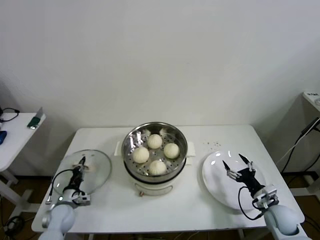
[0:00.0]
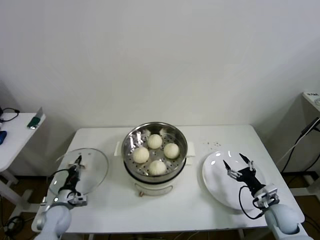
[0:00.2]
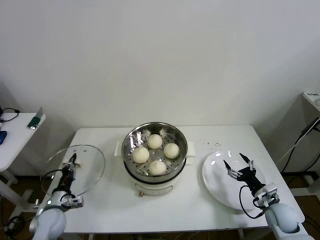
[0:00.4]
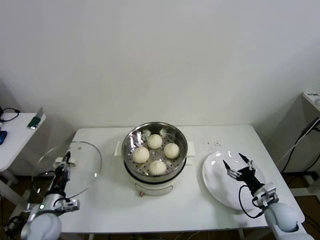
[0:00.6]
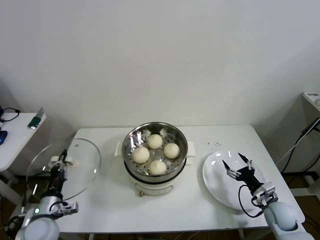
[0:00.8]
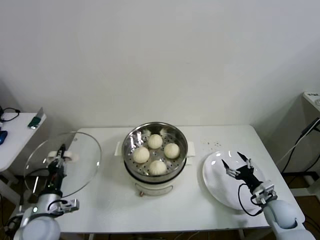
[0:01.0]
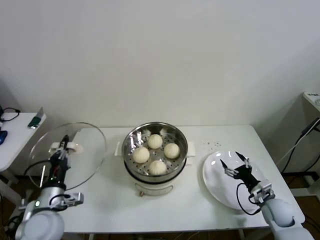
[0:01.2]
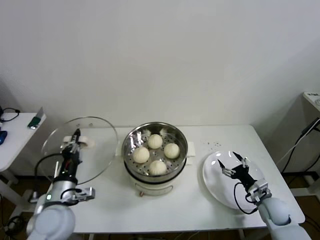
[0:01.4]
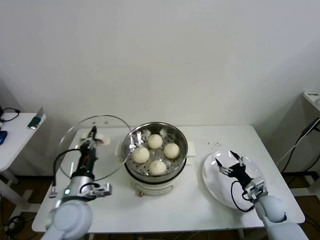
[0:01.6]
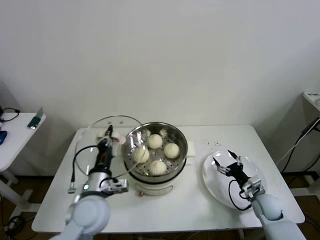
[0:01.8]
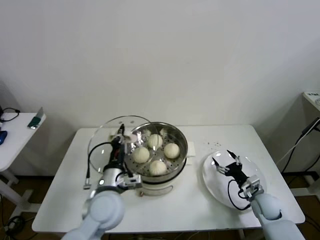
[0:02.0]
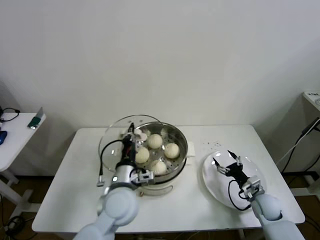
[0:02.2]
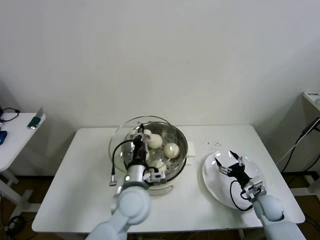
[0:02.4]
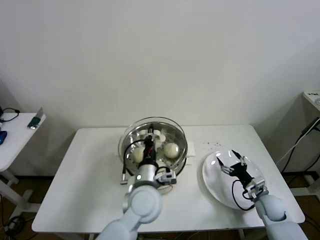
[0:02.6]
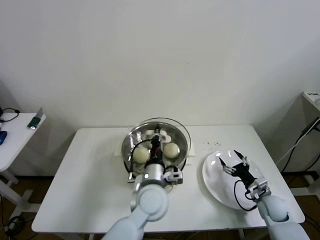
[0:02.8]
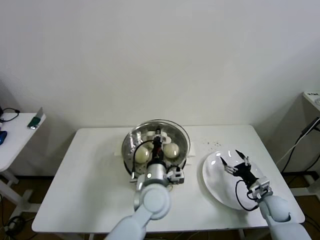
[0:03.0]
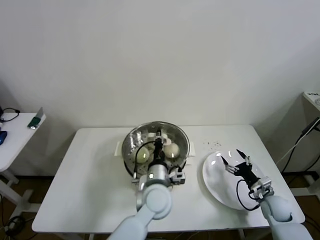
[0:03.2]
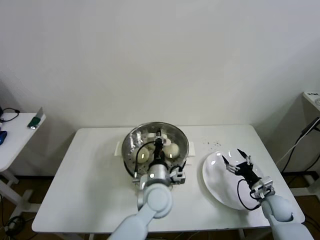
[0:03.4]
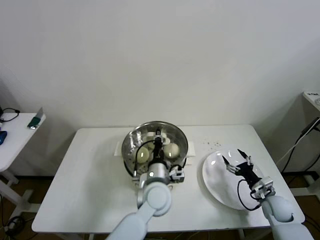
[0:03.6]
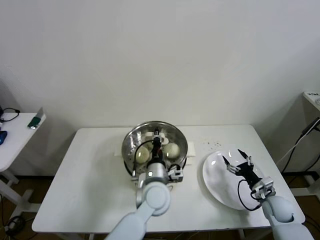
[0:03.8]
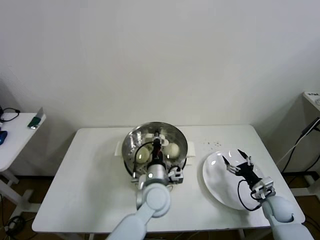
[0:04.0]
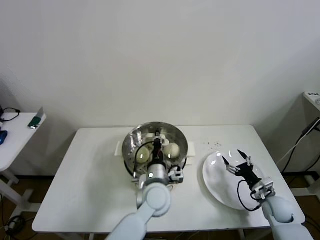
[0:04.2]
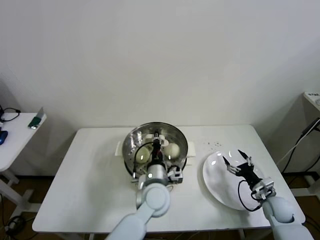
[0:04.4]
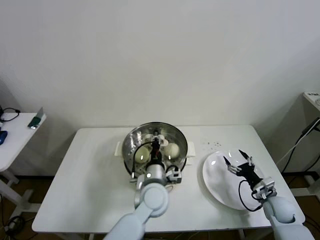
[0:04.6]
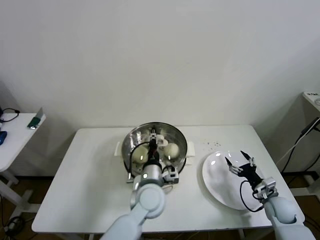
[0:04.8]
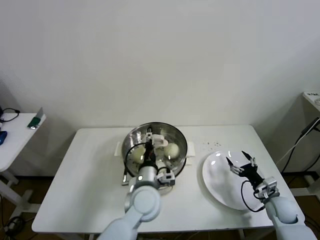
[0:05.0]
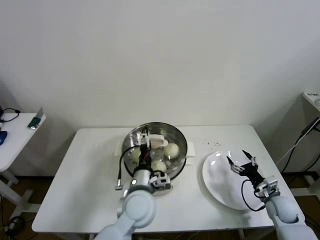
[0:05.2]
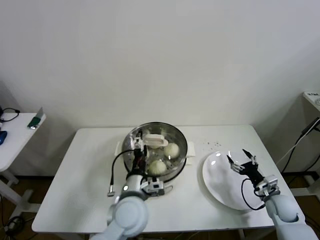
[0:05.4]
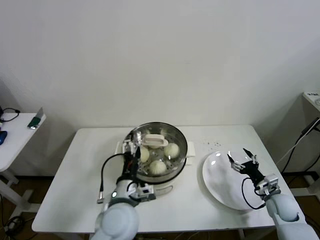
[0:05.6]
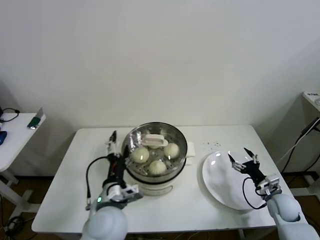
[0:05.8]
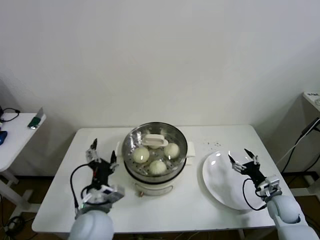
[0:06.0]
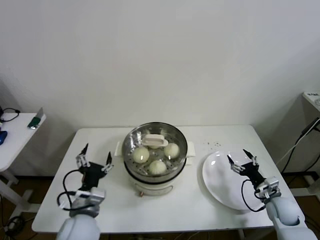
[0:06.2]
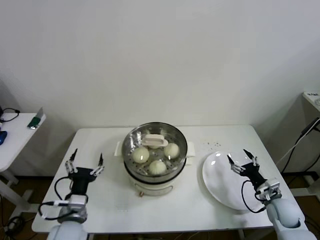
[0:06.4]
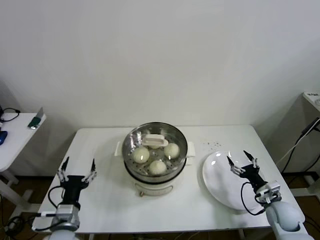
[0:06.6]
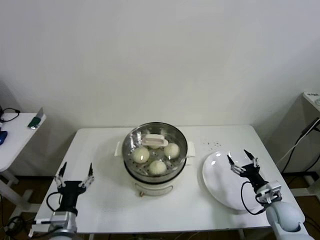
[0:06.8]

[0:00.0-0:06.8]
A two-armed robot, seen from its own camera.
Step, 0:00.0 to 0:05.4: Place the pot lid on the steamer with left gripper.
0:00.0 to 0:01.4: The left gripper travels upward and to the right by roughly 20 cm.
0:01.4 to 0:02.8: The left gripper goes approximately 25 cm to the right.
0:02.8 to 0:04.0: The grippers move only a little.
0:04.0 to 0:05.4: The left gripper travels to the left by some 5 cm, and opens.
0:05.4 to 0:06.8: The left gripper heads to the left and backward, covering approximately 25 cm.

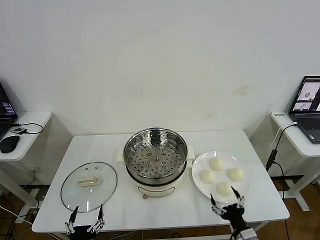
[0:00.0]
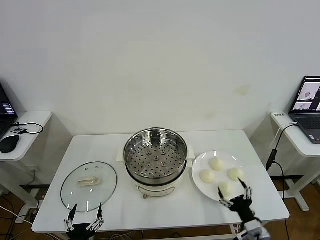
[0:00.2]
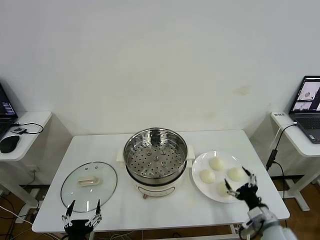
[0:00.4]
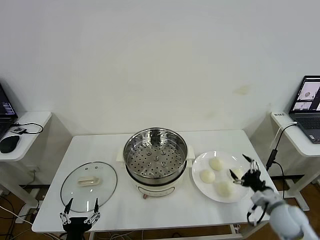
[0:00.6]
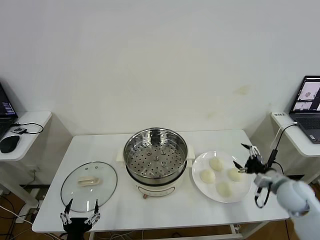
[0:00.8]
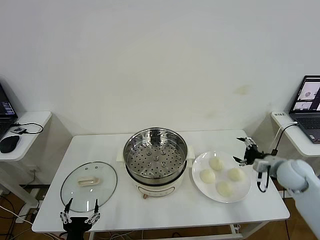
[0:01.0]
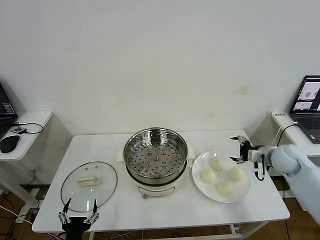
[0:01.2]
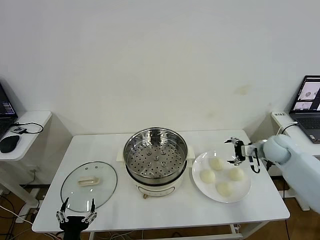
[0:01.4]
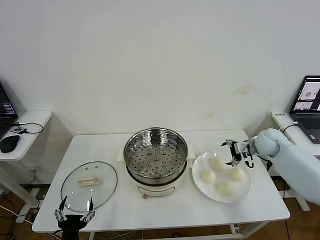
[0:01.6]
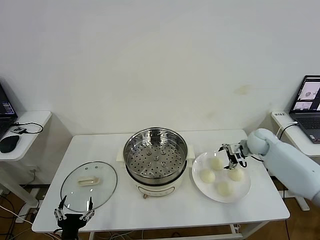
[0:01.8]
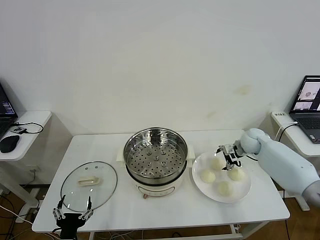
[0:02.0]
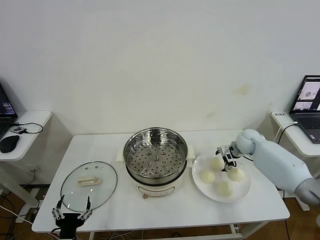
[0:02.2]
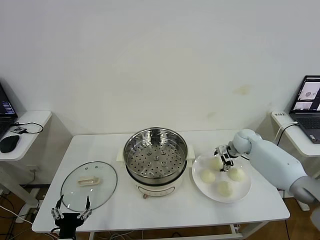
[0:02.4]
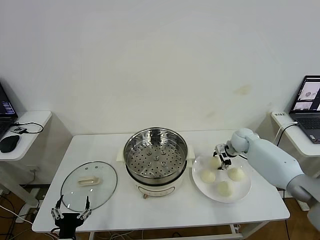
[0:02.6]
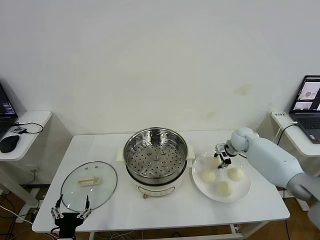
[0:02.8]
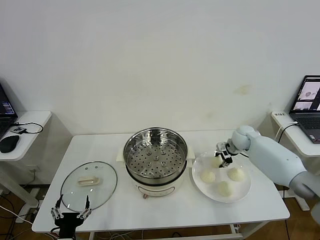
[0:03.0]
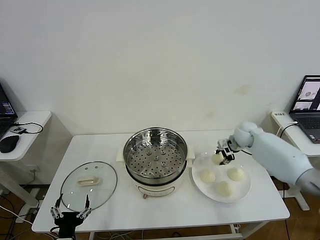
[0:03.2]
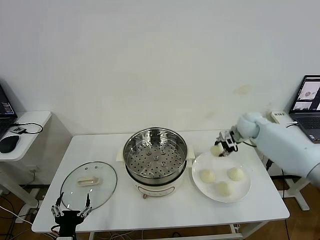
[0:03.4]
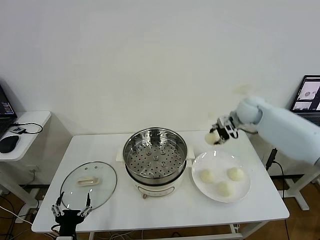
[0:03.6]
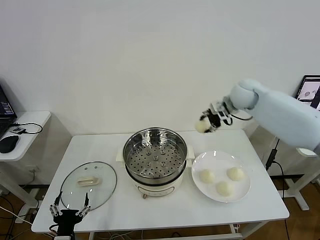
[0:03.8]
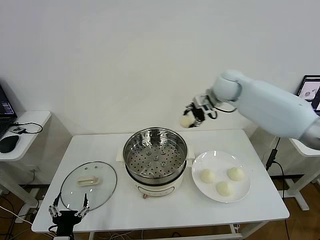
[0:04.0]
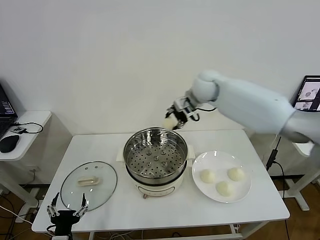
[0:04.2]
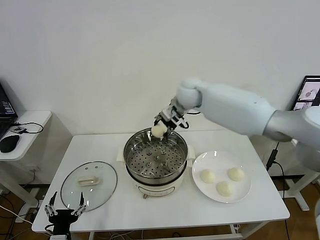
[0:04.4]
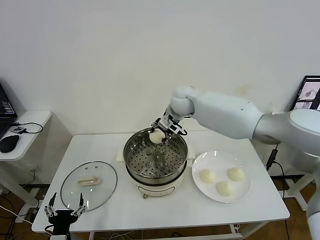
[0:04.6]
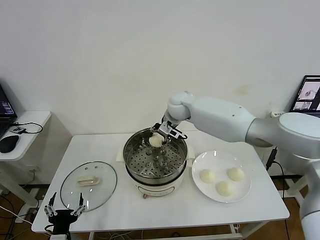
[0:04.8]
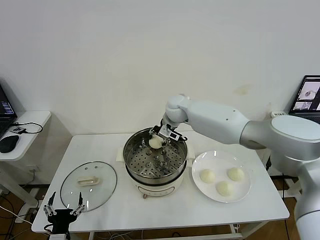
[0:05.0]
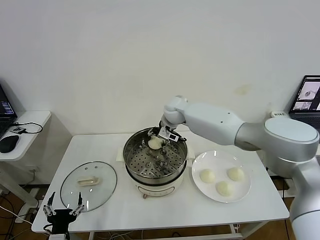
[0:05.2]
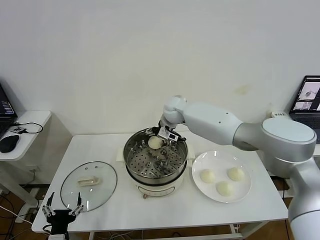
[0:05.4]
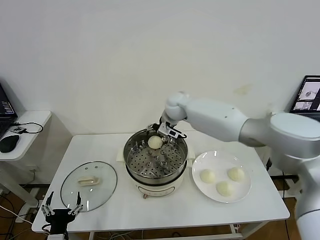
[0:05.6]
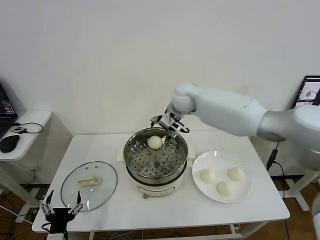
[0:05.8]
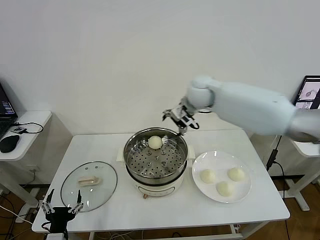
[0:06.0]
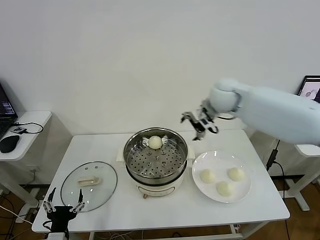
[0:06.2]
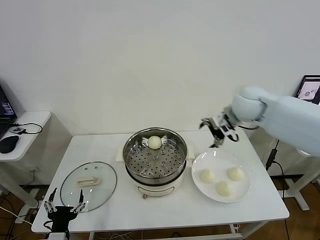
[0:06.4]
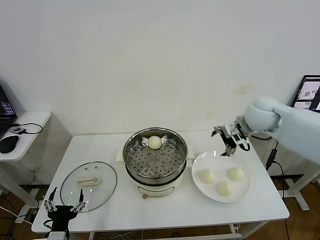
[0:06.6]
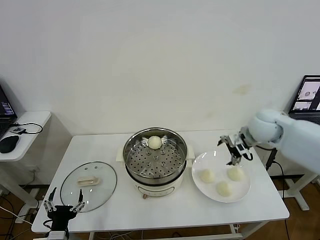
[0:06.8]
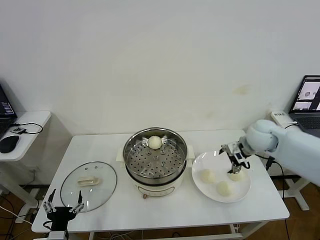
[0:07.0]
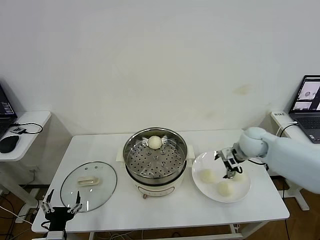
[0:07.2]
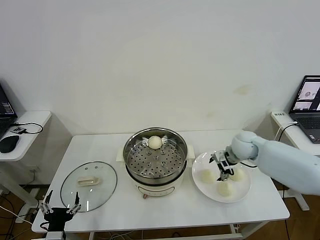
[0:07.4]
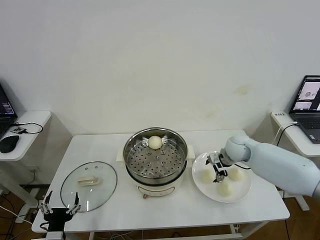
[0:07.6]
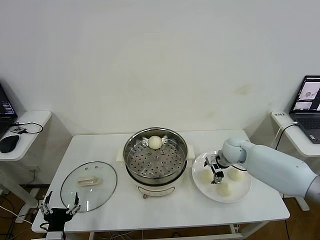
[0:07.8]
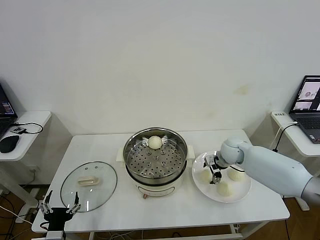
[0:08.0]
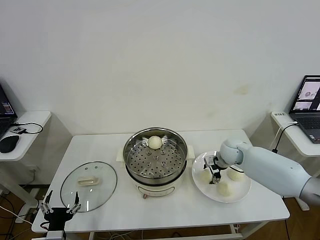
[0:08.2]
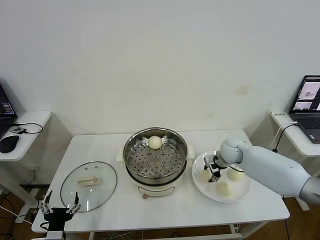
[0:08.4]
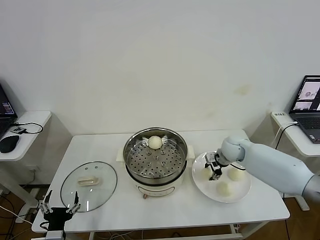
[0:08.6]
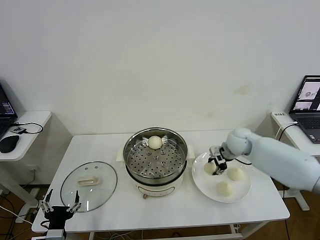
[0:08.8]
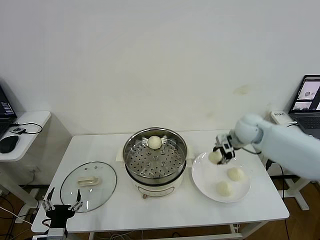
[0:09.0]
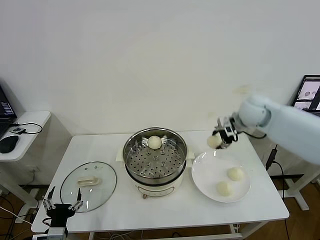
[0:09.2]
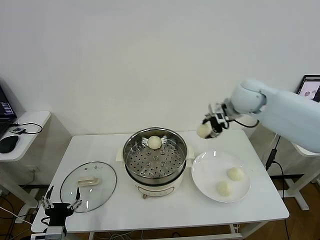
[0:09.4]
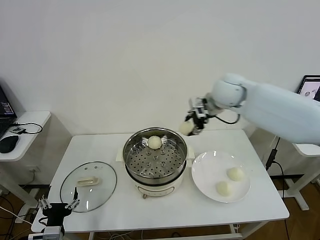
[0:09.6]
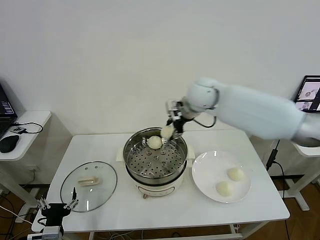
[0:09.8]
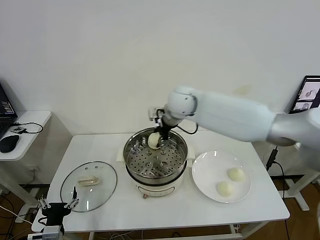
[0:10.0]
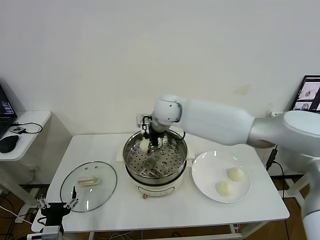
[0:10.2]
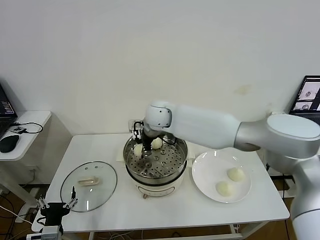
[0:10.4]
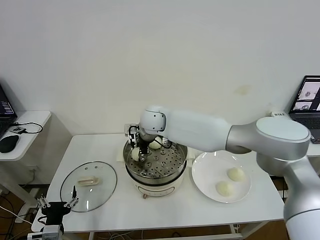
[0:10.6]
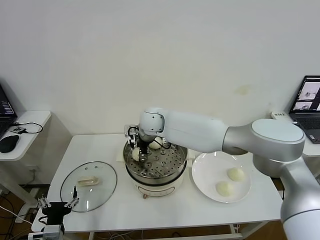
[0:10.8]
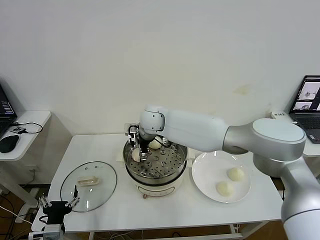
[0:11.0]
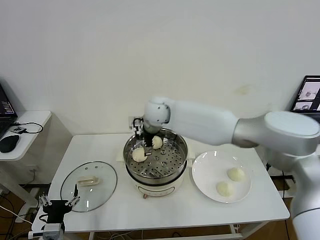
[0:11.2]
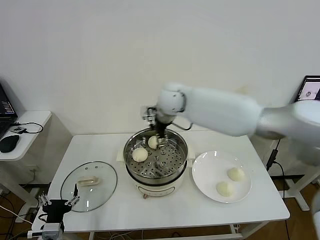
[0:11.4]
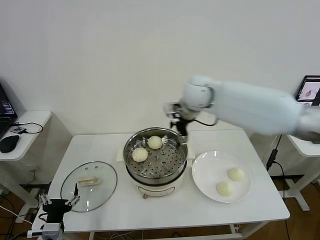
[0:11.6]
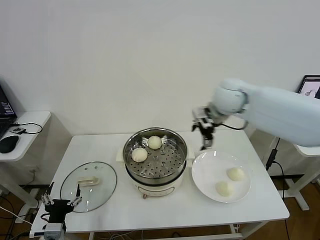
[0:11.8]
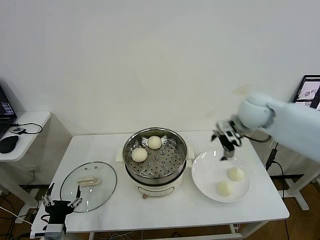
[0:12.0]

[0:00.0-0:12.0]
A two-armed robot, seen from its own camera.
Step, 0:00.0 to 0:02.6: Grasp the baozi in the plate with right gripper.
Step, 0:03.0 to 0:05.4: Place the baozi on the steamer with right gripper.
Step, 0:05.6 to 0:08.4: Grasp the baozi in the plate with right gripper.
Step, 0:08.6 to 0:11.0: Place the baozi on the steamer with right gripper.
0:01.6 to 0:03.0: The right gripper ends up approximately 5 cm from where it was, and closes its fingers.
0:03.0 to 0:04.4: The right gripper shifts about 30 cm to the left and upward.
0:04.4 to 0:06.0: The right gripper travels to the right by some 5 cm, and opens its fingers.
0:06.0 to 0:07.6: The right gripper shifts about 25 cm downward and to the right.
0:07.6 to 0:09.0: The right gripper heads upward, covering some 10 cm, and closes its fingers.
0:09.0 to 0:10.4: The right gripper heads to the left, covering approximately 30 cm.
0:10.4 to 0:12.0: The right gripper shifts approximately 30 cm to the right, and opens.

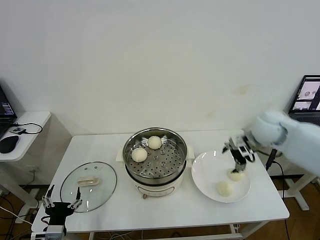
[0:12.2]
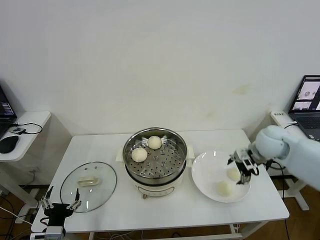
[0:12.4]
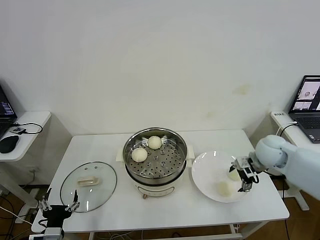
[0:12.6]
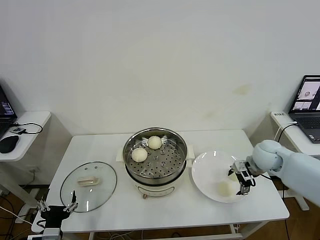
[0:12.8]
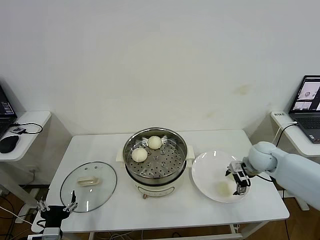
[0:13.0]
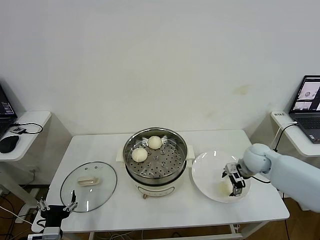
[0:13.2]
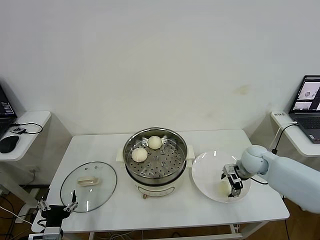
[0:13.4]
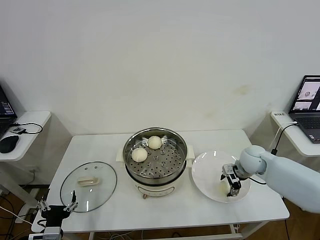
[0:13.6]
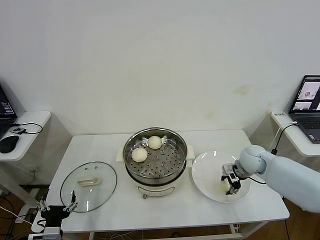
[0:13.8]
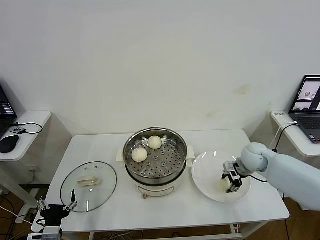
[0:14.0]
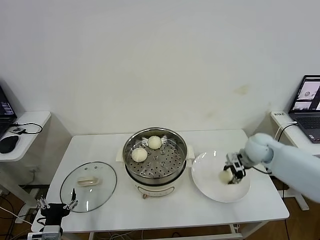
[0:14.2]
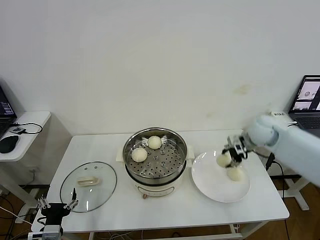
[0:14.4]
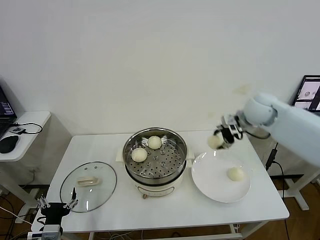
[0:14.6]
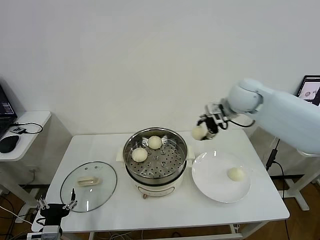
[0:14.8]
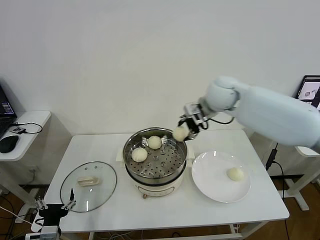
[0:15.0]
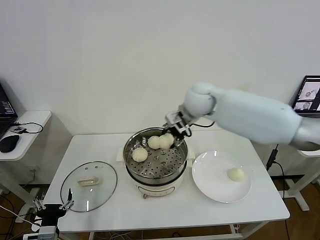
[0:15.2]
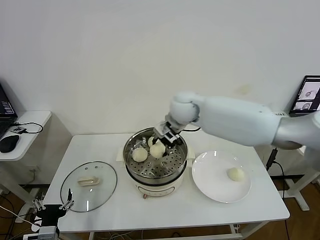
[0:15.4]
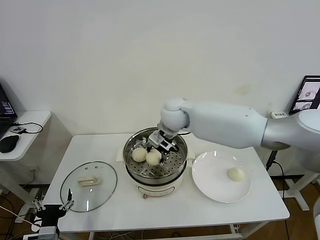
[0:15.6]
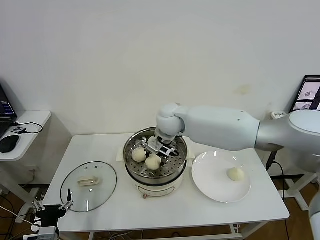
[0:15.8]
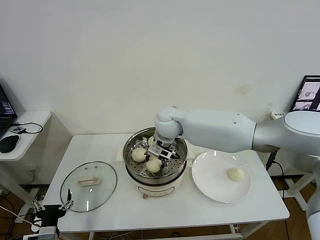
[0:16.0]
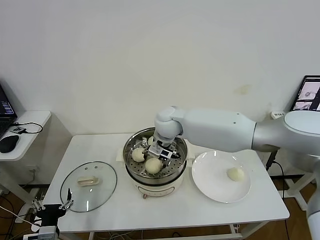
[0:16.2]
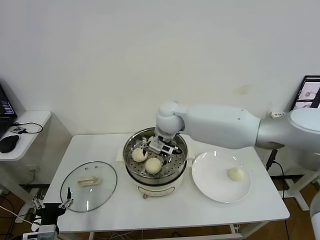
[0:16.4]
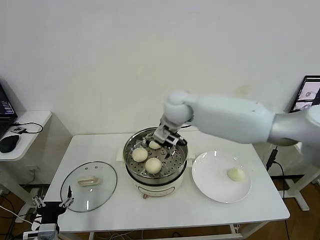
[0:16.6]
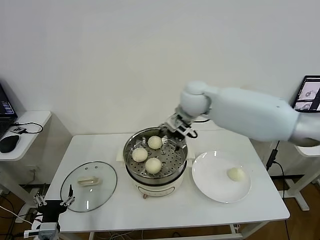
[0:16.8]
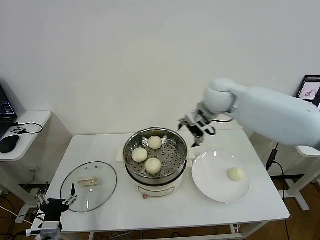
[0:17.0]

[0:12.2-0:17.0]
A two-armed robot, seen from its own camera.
Step, 0:12.2 to 0:13.8: Grasp the baozi in the plate with right gripper.
Step, 0:14.0 to 0:16.2: Place the baozi on the steamer with right gripper.
0:12.2 to 0:13.8: The right gripper moves downward, about 15 cm, and closes.
0:13.8 to 0:15.4: The right gripper shifts about 35 cm to the left and upward.
0:15.4 to 0:17.0: The right gripper is displaced to the right by approximately 10 cm, and opens its fingers.
